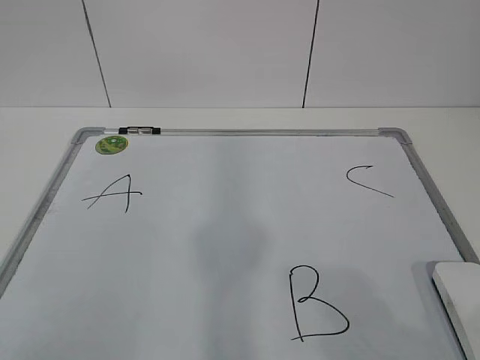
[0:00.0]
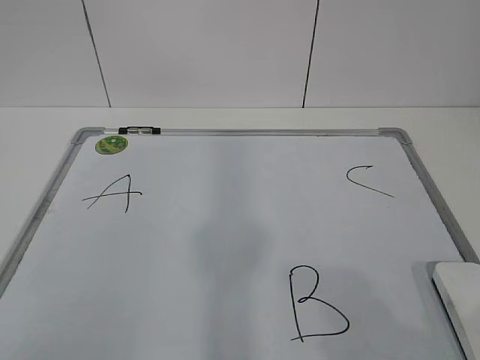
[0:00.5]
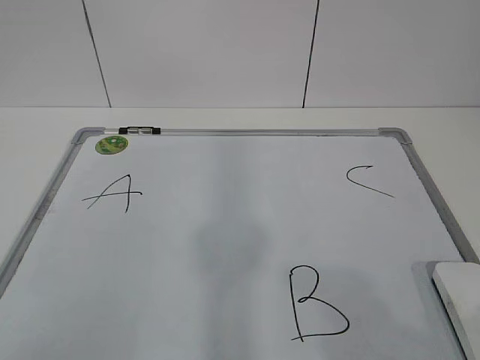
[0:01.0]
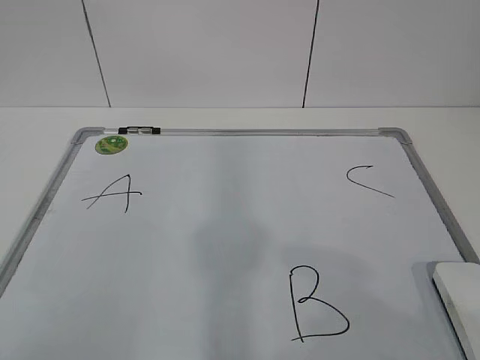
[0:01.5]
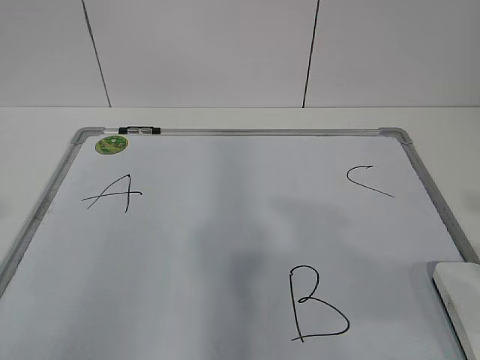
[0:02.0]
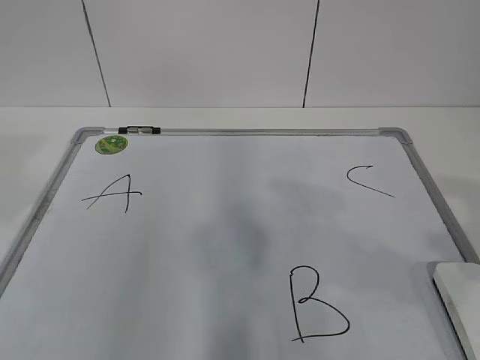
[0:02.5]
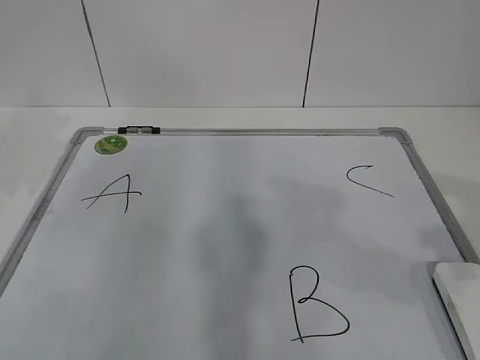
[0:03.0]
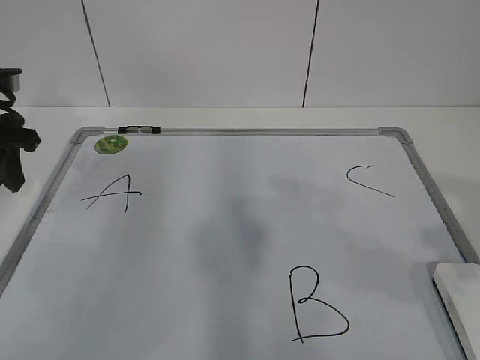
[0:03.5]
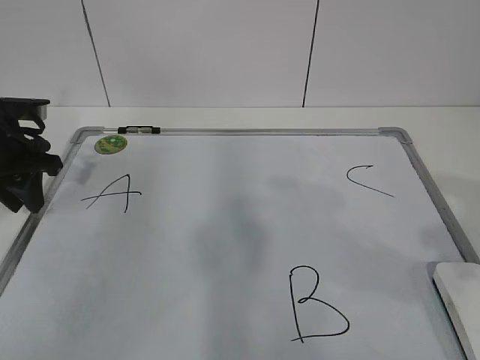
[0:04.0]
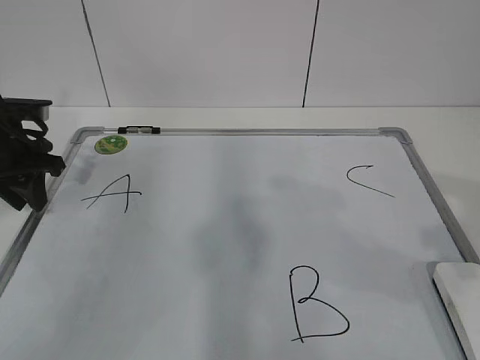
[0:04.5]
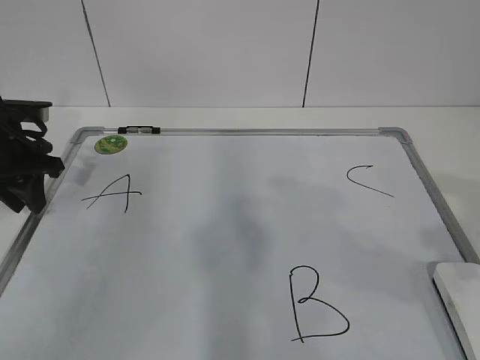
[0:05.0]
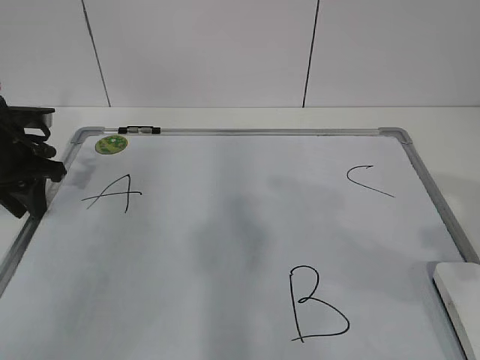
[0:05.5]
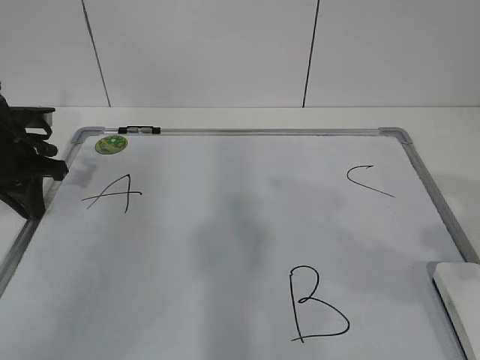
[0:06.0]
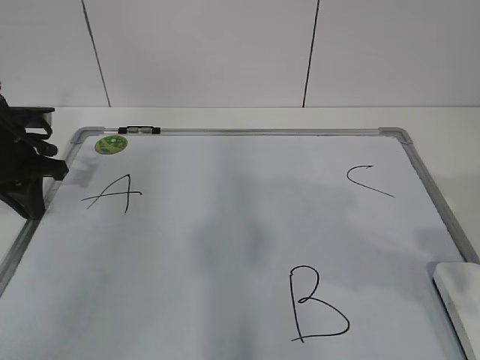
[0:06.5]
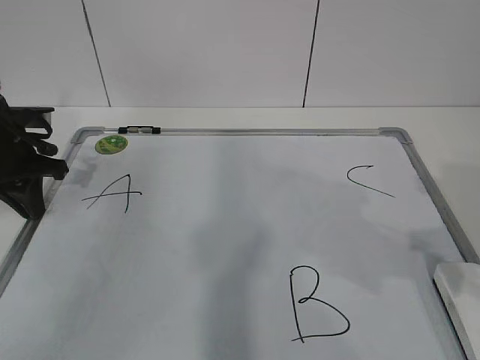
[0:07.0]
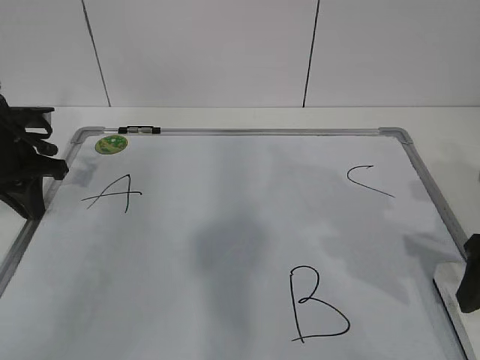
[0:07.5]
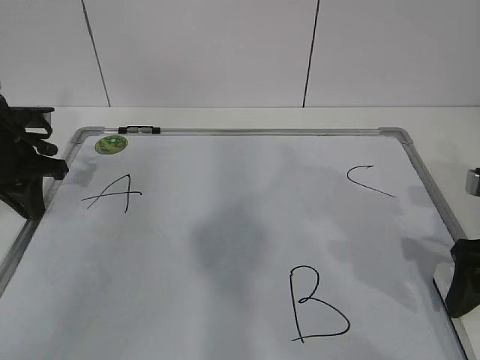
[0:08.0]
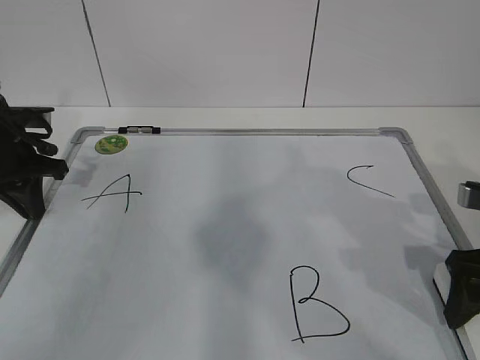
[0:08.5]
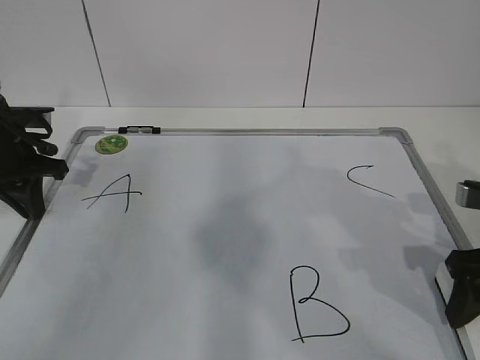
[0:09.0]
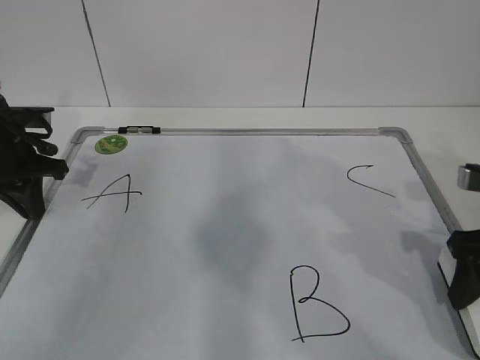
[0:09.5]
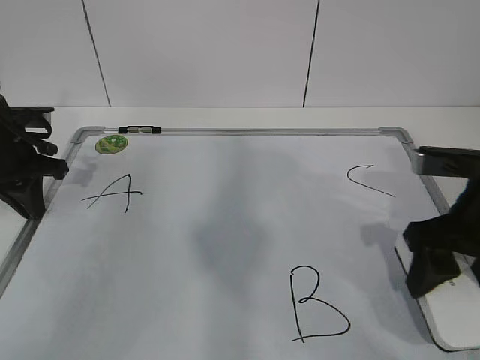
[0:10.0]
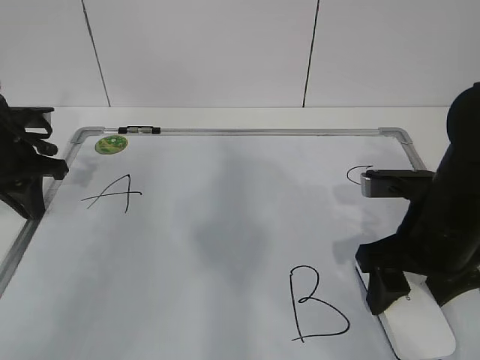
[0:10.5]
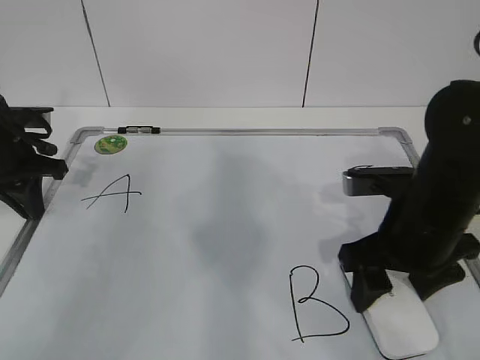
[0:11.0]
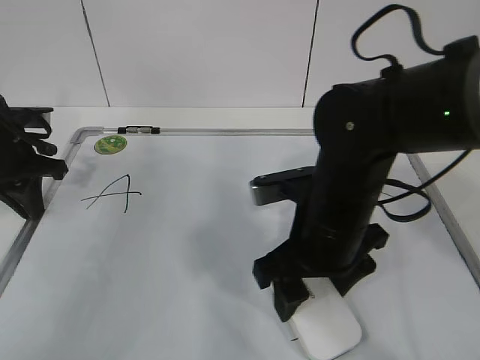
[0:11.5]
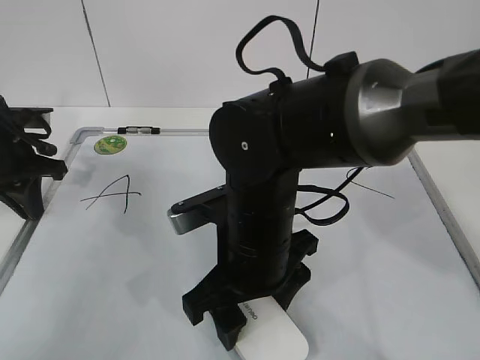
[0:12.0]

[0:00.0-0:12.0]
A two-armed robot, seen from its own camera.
Task of the whole recording: pick up the eraser on the blackboard and erase the letter "B".
Step, 0:00.0 to 0:04.5: Hold the drawing board steady with your left hand.
0:02.0 to 0:04.0: The left gripper travels forward by approximately 35 cm.
0:04.0 to 0:06.0: The left gripper closes.
0:06.0 to 0:08.0: The right gripper travels forward and downward by some 15 cm, and opens up.
0:08.0 to 0:10.0: The right gripper closes up.
0:10.0 to 0:12.0: The right gripper is displaced to the left by some 20 cm.

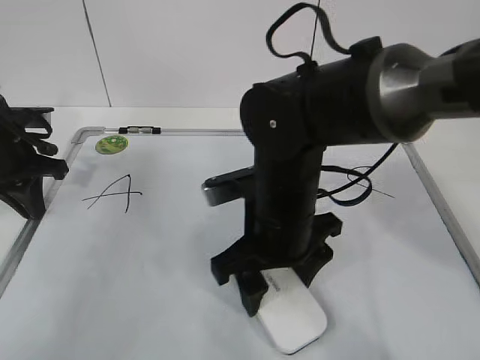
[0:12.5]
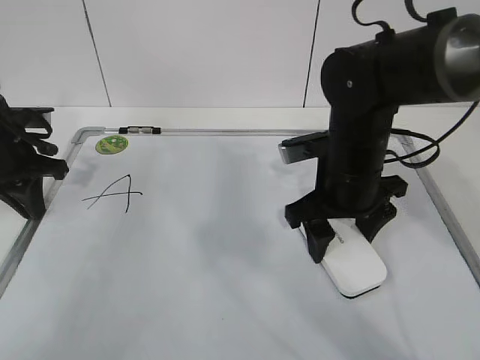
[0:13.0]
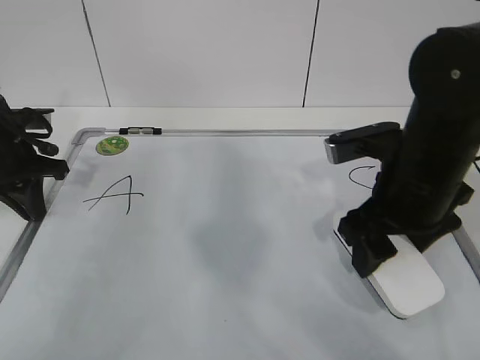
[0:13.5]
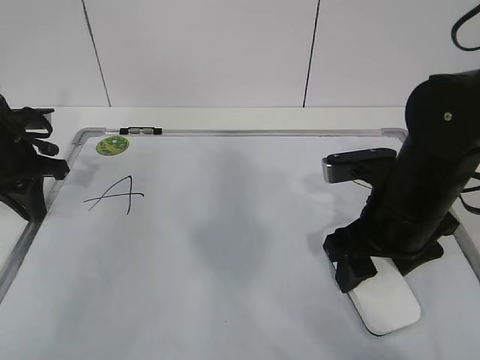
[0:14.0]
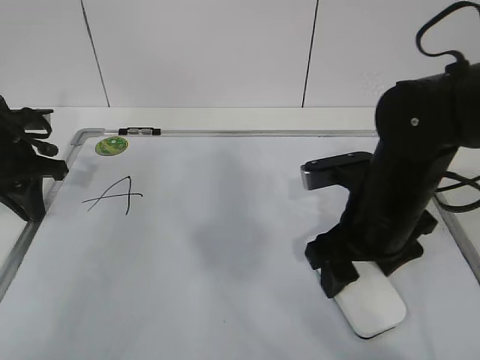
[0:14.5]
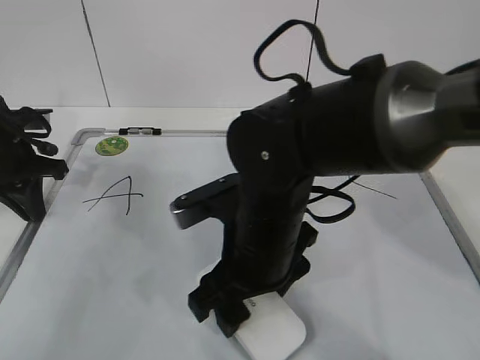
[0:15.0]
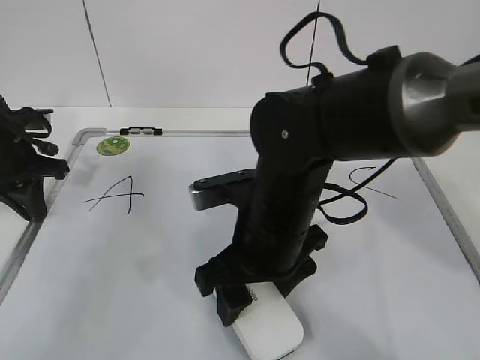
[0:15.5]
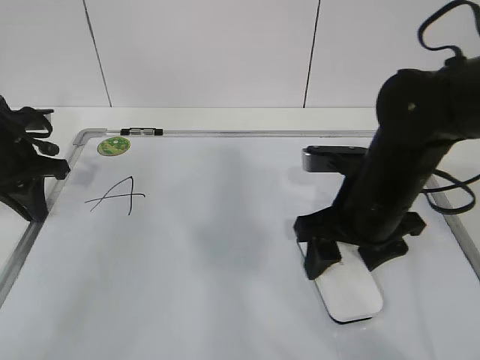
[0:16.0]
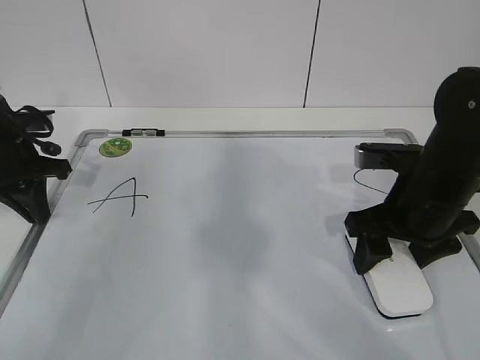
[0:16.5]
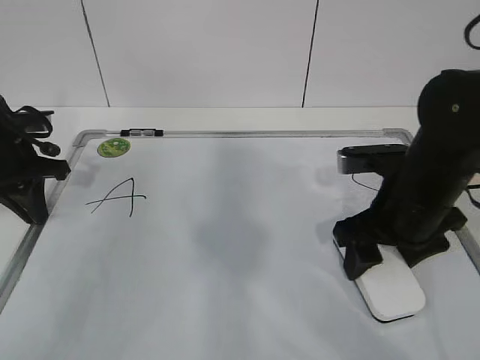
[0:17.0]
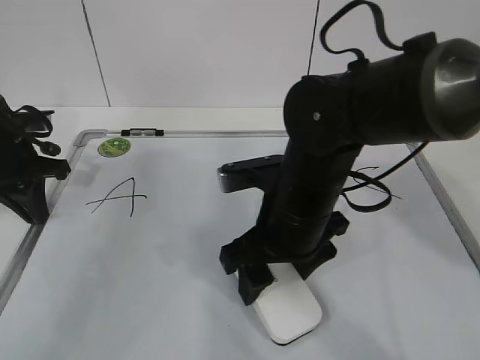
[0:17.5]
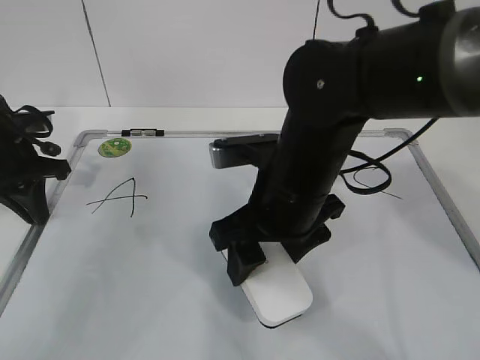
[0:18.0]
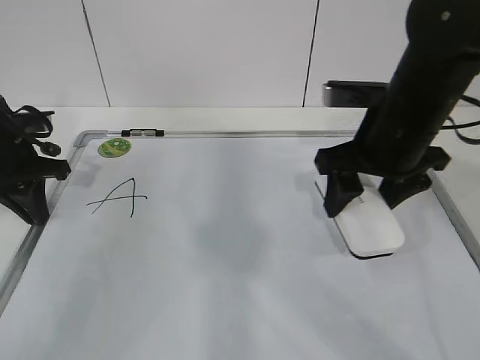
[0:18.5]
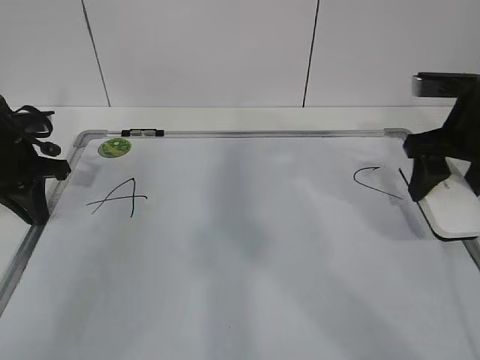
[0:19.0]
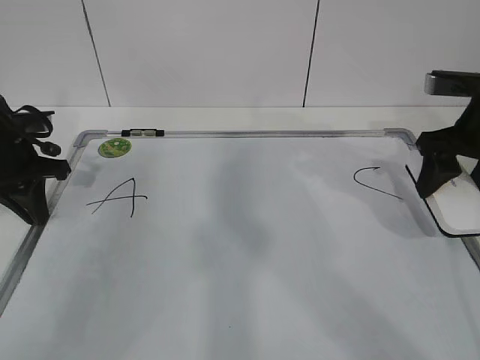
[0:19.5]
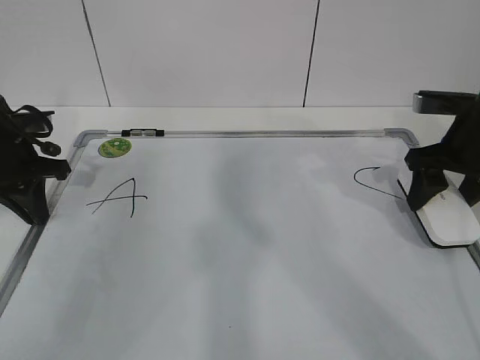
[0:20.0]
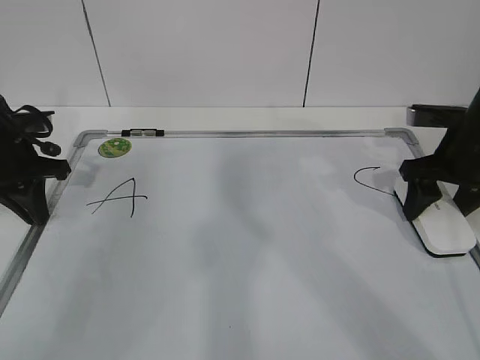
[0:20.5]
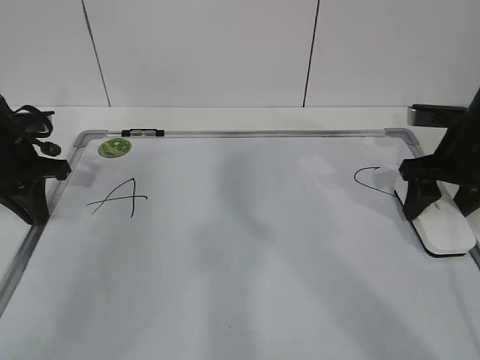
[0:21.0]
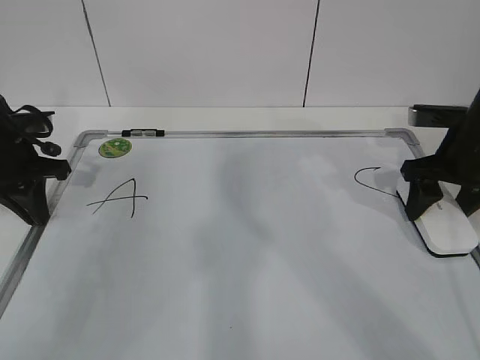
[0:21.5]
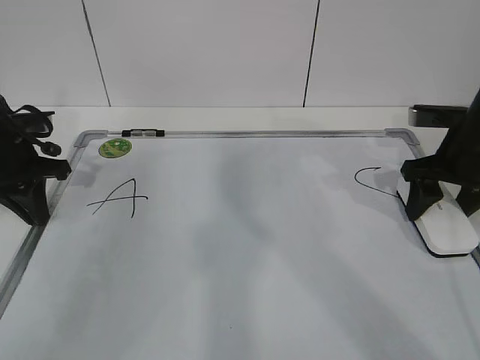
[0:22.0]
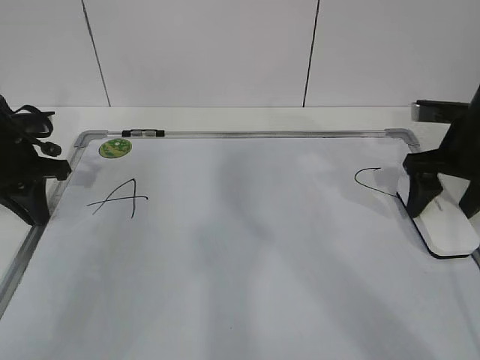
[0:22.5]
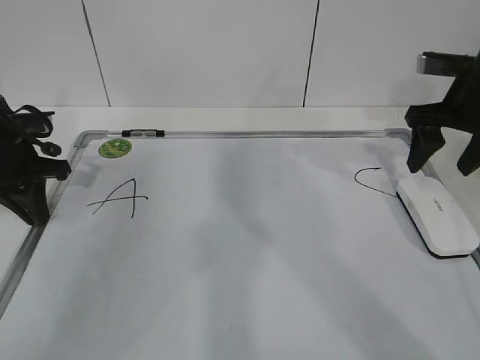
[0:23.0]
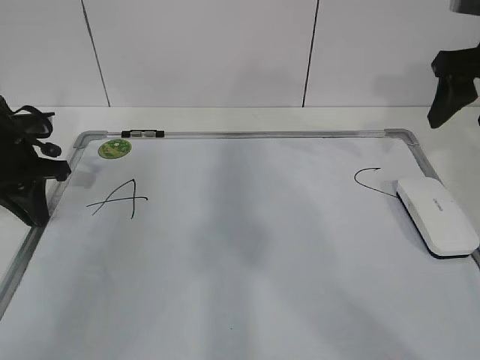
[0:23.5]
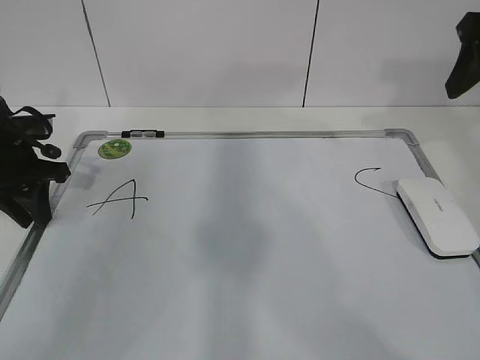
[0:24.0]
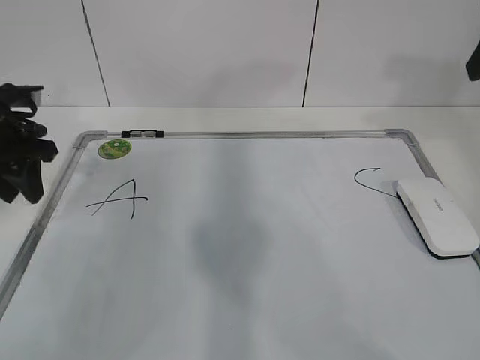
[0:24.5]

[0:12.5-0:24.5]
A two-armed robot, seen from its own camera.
Task of the whole recording: pick up the eraser on the blackboard and erase the letter "B".
Step, 0:12.5 to 0:14.5: Erase the letter B with your right hand.
Step, 0:15.0 to 0:18.5: Put down the eraser with your right hand.
0:12.5 to 0:14.5: The right gripper goes some 10 cm to the right.
0:14.5 to 0:16.5: The right gripper moves about 10 cm to the left and comes back.
0:16.5 to 0:18.5: The right gripper travels upward by roughly 5 cm, and reaches some 15 cm to the left, then returns.
0:18.5 to 0:20.5: The right gripper travels to the right and downward by approximately 15 cm.
0:20.5 to 0:22.5: The right gripper opens up.
0:22.5 to 0:24.5: The right gripper goes about 20 cm upward, and closes its fingers. The left gripper opens up.

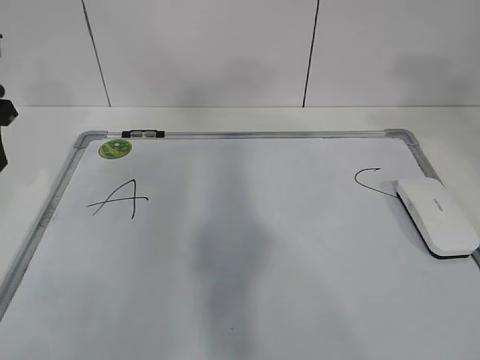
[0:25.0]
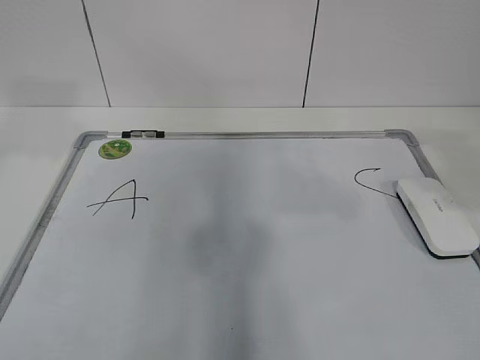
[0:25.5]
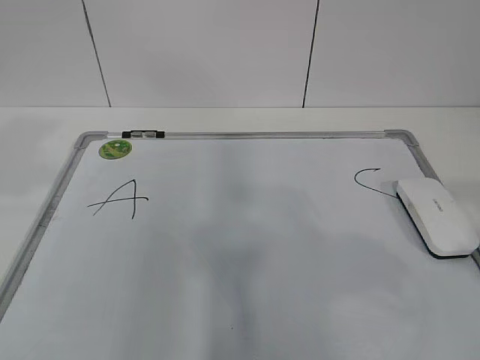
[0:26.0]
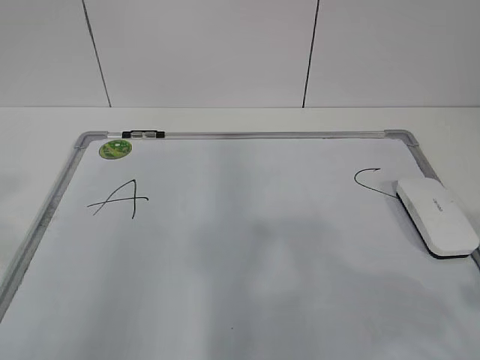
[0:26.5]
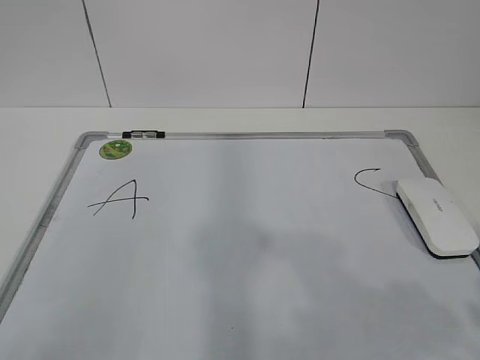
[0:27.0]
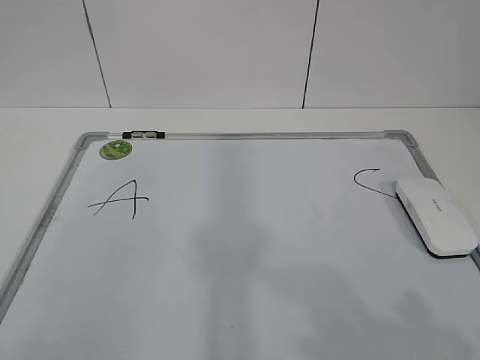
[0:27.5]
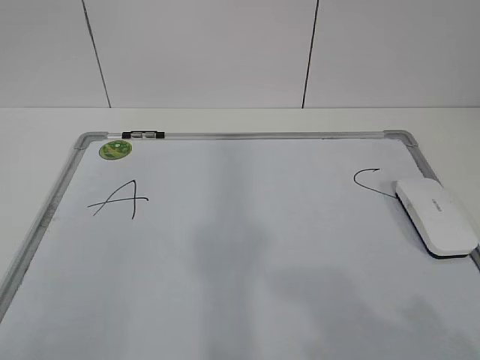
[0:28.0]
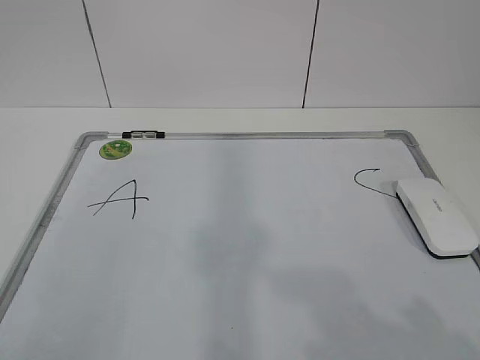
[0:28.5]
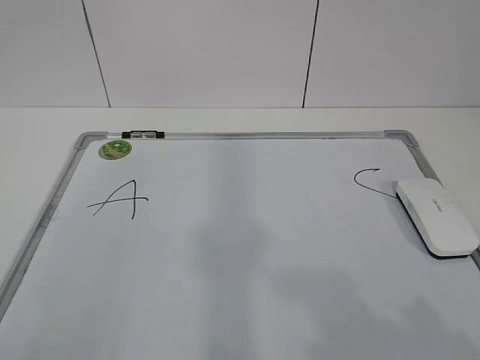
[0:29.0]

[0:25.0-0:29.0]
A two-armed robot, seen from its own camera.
Task of the whole recording: pick up the eraser on the blackboard and erase the letter "B".
0:25.0 to 0:27.0: The left gripper shifts approximately 30 cm backward. The right gripper shifts approximately 25 cm backward and downward.
